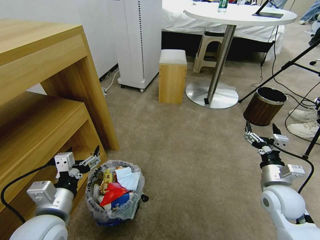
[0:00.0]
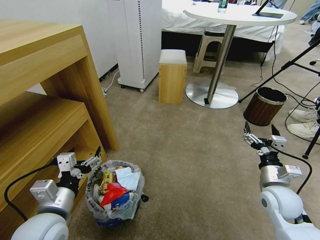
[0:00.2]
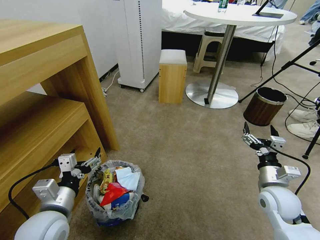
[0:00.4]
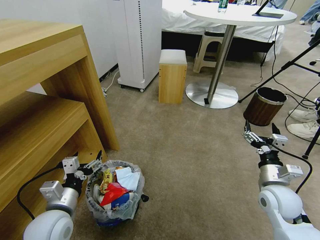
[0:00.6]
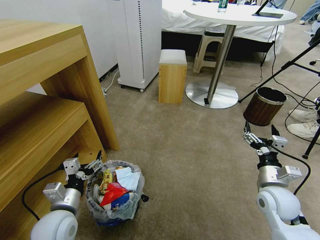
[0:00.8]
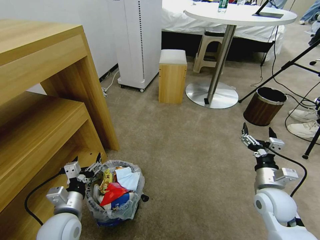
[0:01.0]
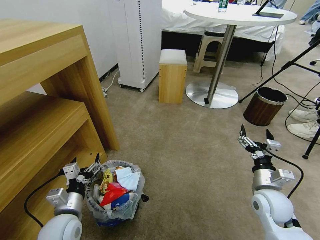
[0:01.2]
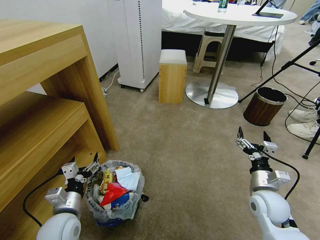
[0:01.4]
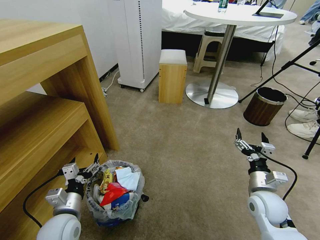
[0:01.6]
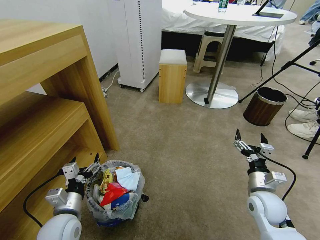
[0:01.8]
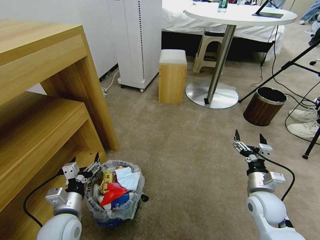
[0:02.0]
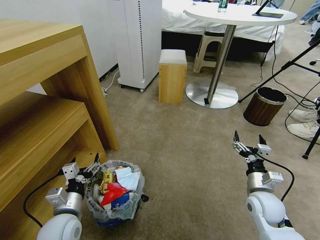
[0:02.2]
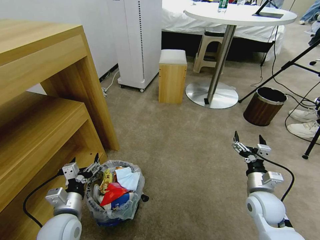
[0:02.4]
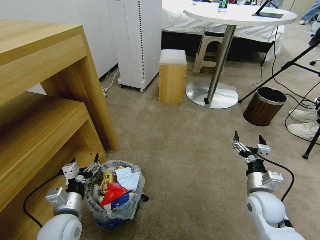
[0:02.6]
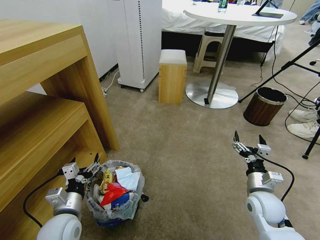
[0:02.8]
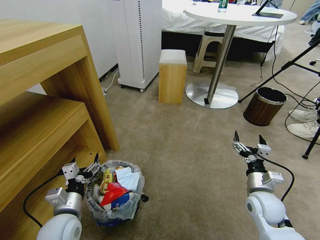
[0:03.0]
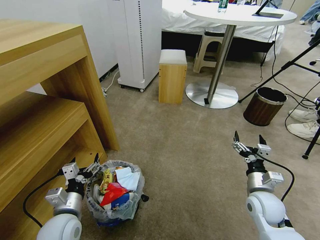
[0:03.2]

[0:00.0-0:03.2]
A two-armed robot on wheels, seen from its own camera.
Task of the whole recording: Pick up the trash bin and place the garbage on the floor into it.
0:00.0 to 0:01.6: The left gripper is displaced downward by roughly 10 cm.
0:01.6 to 0:03.2: Neither gripper changes place.
